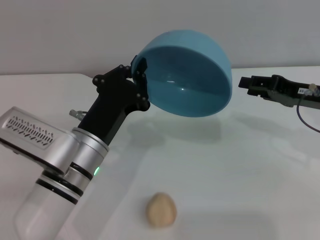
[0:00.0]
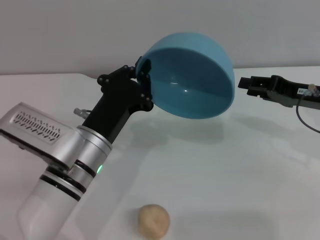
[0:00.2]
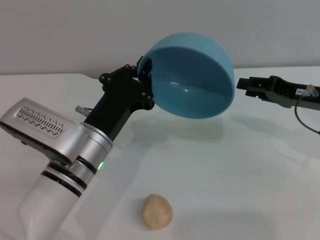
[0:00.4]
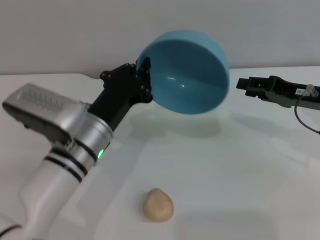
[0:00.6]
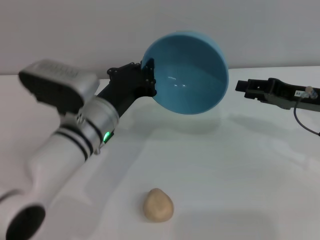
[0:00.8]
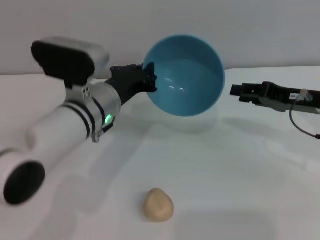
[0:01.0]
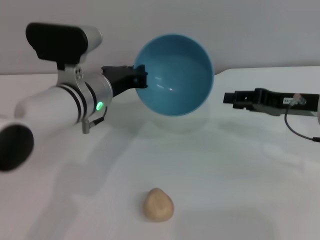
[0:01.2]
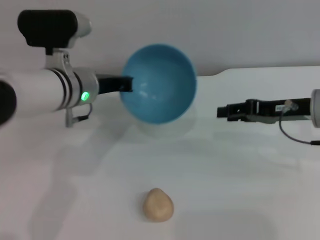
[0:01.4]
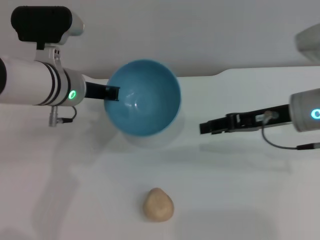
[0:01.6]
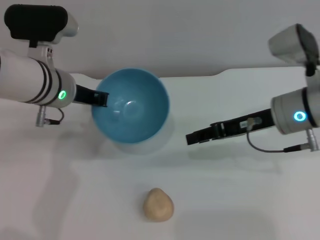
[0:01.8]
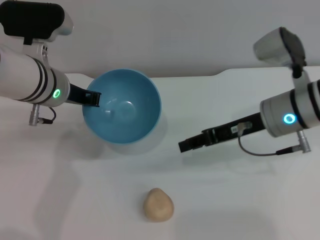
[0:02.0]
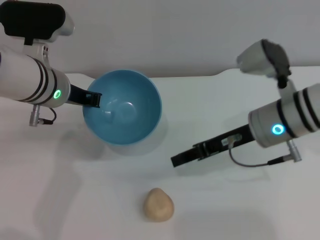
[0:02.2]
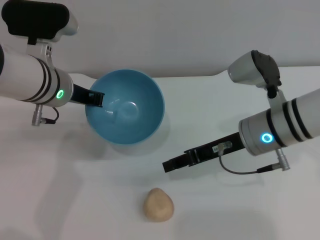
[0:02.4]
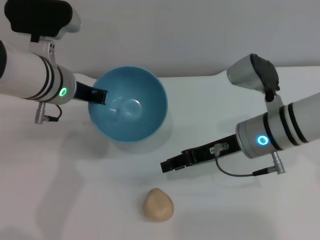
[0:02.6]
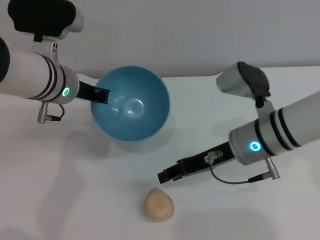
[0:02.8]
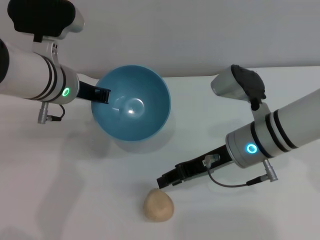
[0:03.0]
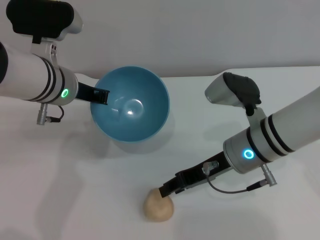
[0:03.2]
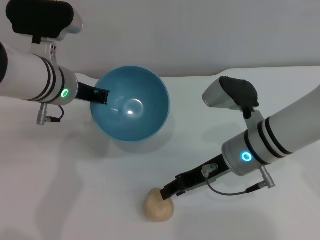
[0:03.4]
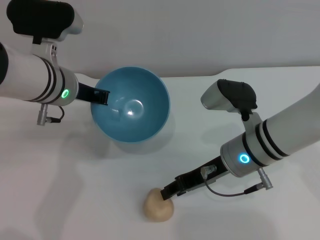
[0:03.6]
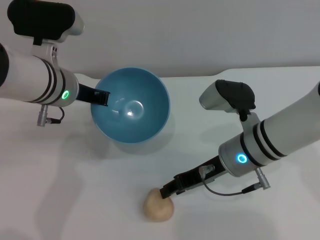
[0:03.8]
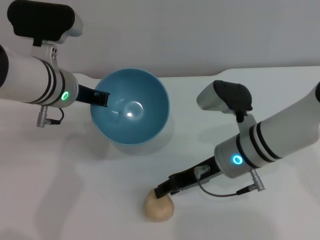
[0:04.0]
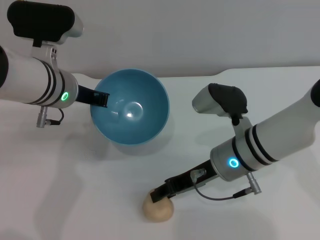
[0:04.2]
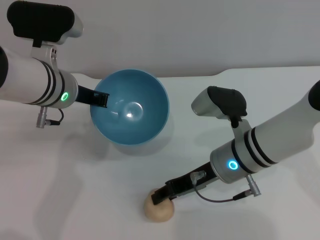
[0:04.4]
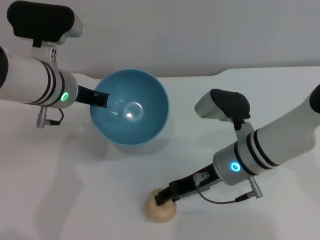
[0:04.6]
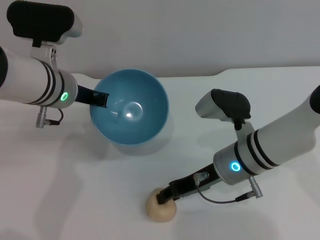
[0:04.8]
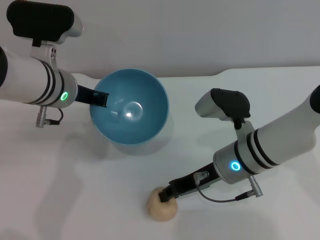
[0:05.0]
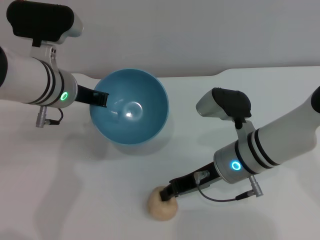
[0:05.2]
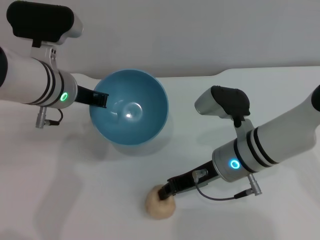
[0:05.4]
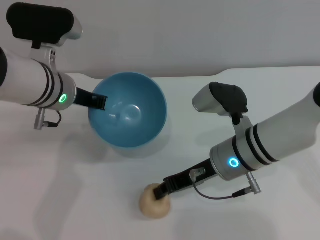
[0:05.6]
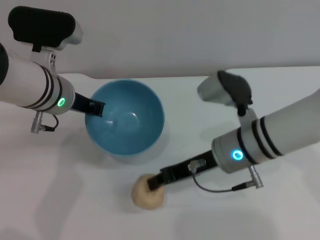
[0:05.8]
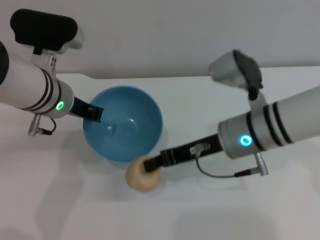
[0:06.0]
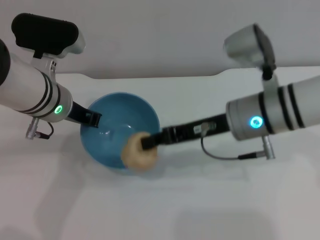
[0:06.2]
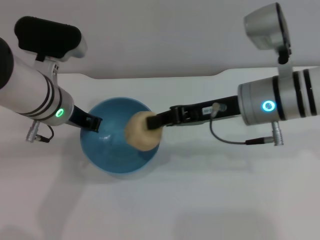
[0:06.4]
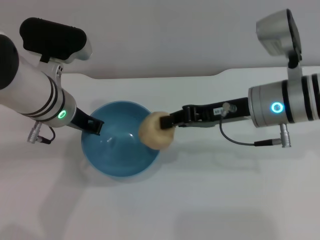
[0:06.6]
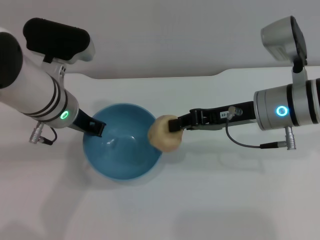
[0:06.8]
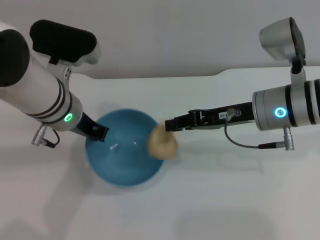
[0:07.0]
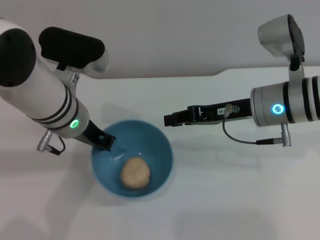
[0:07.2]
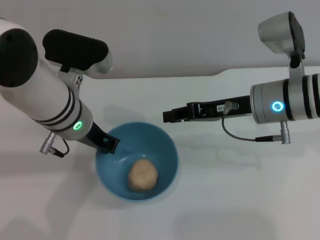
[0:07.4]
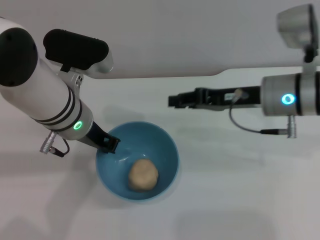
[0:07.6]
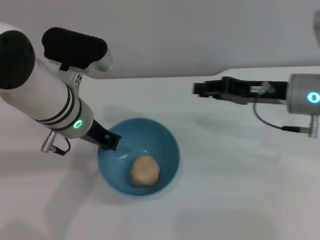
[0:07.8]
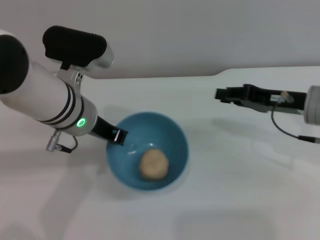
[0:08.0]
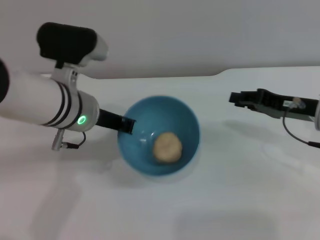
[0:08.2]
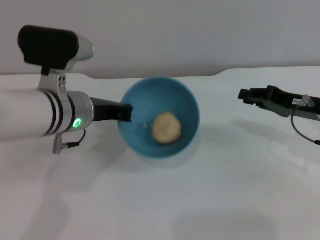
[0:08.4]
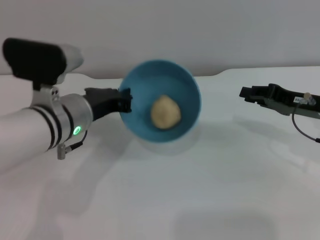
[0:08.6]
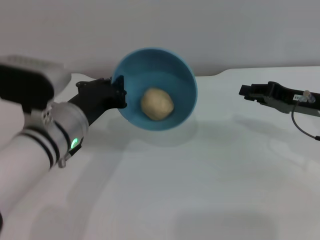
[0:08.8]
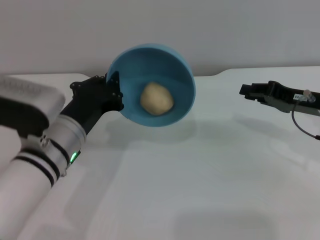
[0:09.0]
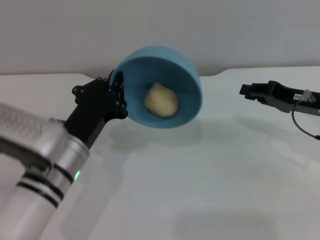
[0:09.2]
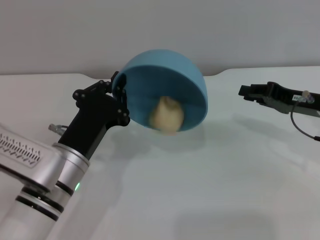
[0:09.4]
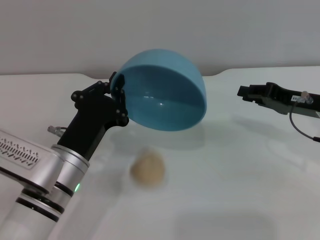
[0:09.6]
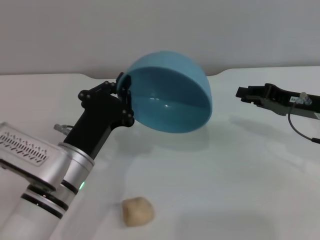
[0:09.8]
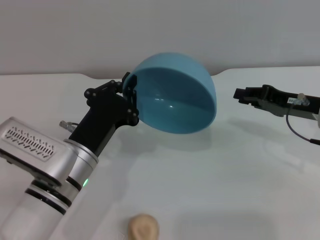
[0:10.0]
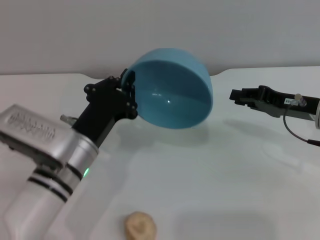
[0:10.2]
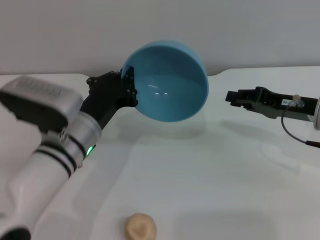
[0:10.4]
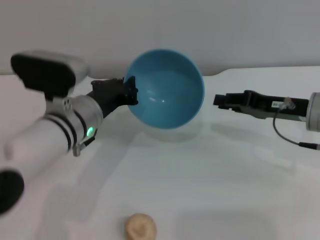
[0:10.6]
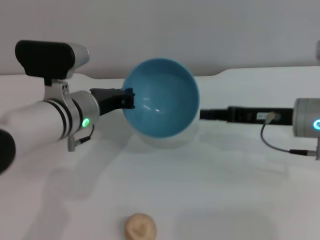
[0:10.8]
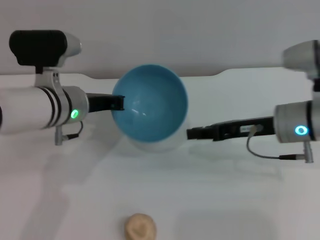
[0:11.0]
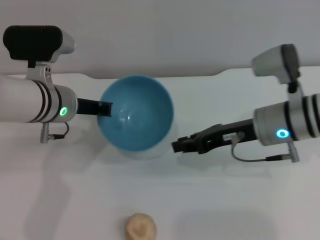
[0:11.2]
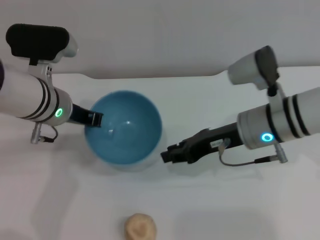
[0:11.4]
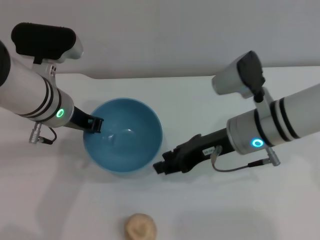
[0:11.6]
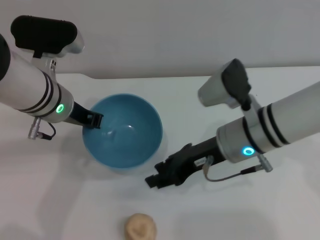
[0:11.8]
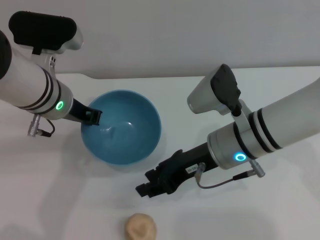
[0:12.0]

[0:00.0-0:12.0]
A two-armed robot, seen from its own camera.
Task of the whole recording: put the egg yolk pastry into the blue bowl and pour it out repeatedly.
Step, 0:00.6 to 0:05.8: Pick up the egg yolk pastry with the right gripper.
Step, 0:06.2 to 0:07.6: Place the egg yolk pastry into the bowl.
Step, 0:07.8 to 0:11.0: Pour the egg yolk pastry out of bowl.
0:00.0 to 0:01.6: The left gripper heads forward and upward, covering about 15 cm. The right gripper moves to the left, about 5 cm.
0:01.6 to 0:03.0: The right gripper is displaced to the left by some 10 cm.
0:03.0 to 0:04.4: There are only small adjustments of the grippers.
0:04.4 to 0:06.0: The right gripper travels upward by roughly 5 cm.
0:06.0 to 0:07.6: The right gripper travels to the right by approximately 5 cm.
0:07.6 to 0:09.0: The right gripper travels to the right by about 10 cm, while the left gripper travels backward and downward by approximately 10 cm.
0:09.0 to 0:10.4: The grippers stay close to where they were, moving slightly.
0:10.4 to 0:12.0: The right gripper heads to the left, covering some 15 cm. Meanwhile the left gripper shifts approximately 10 cm upward and forward.

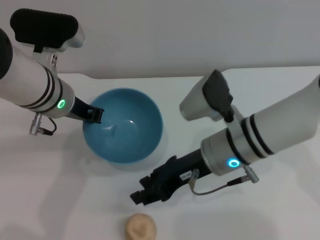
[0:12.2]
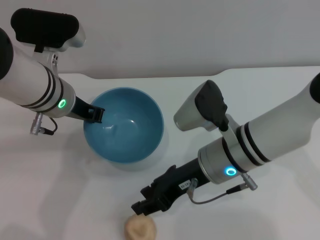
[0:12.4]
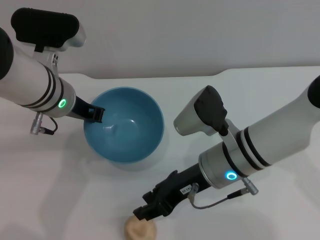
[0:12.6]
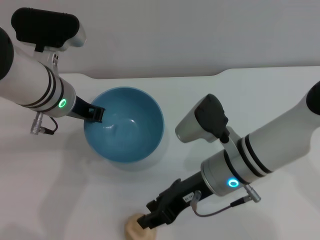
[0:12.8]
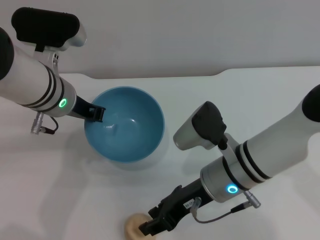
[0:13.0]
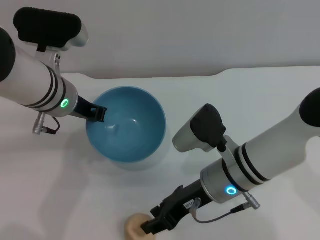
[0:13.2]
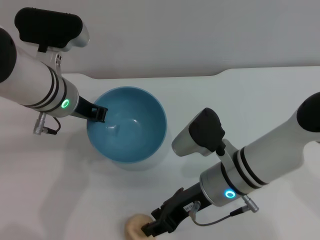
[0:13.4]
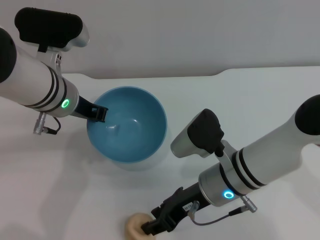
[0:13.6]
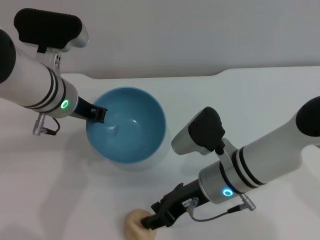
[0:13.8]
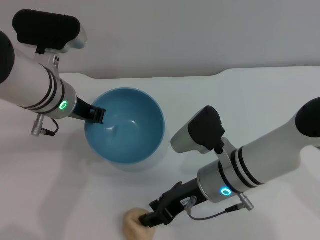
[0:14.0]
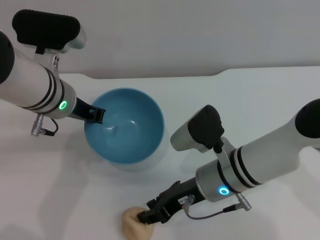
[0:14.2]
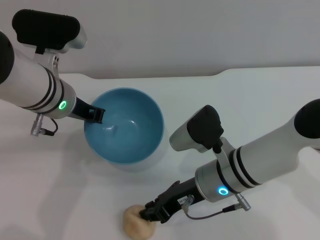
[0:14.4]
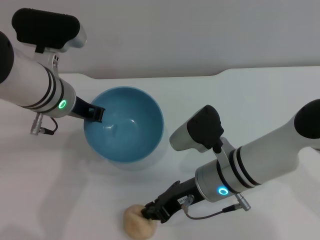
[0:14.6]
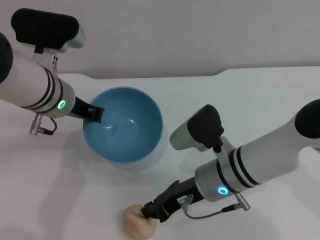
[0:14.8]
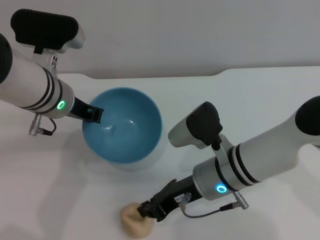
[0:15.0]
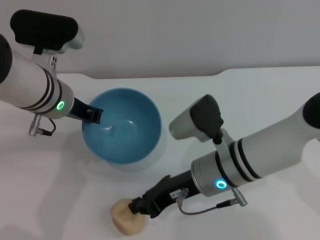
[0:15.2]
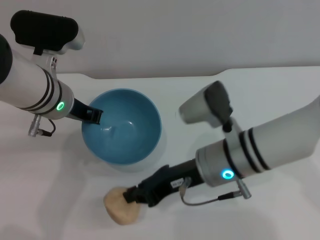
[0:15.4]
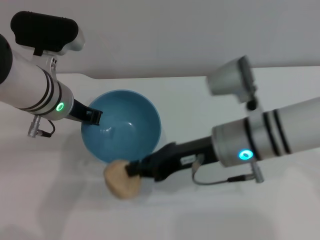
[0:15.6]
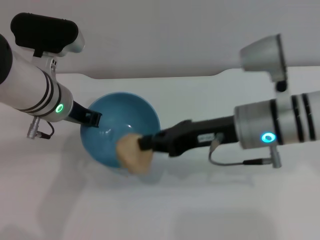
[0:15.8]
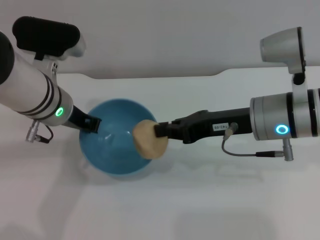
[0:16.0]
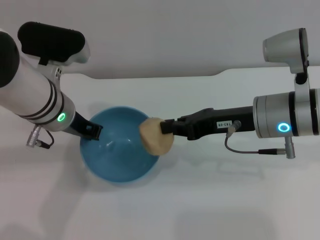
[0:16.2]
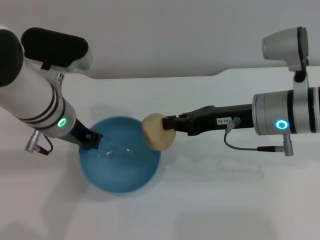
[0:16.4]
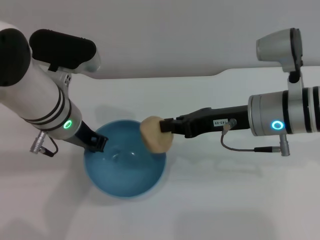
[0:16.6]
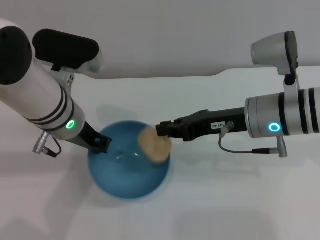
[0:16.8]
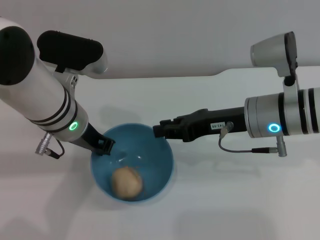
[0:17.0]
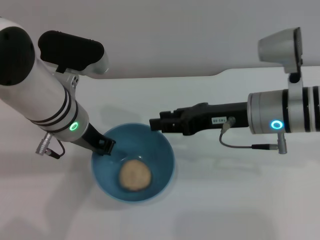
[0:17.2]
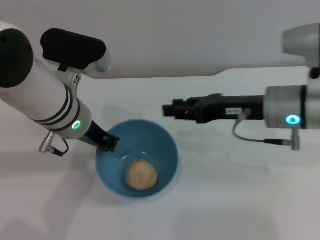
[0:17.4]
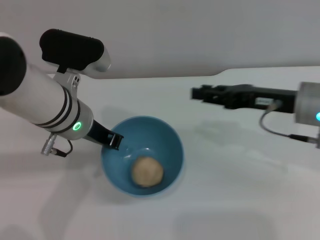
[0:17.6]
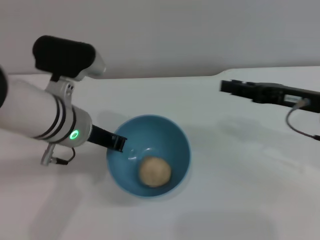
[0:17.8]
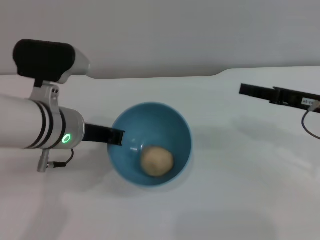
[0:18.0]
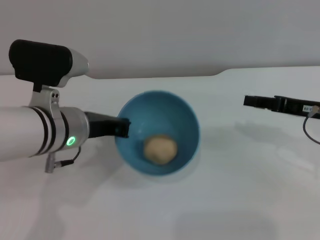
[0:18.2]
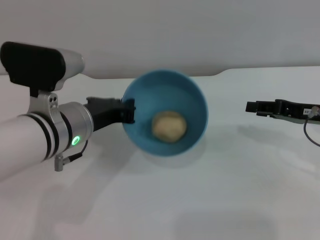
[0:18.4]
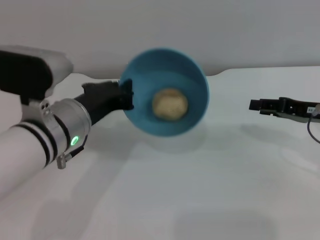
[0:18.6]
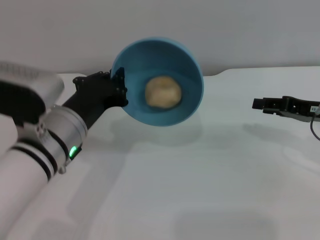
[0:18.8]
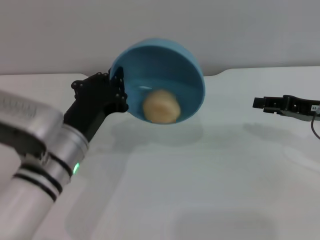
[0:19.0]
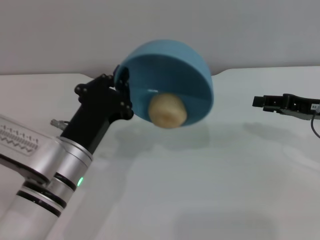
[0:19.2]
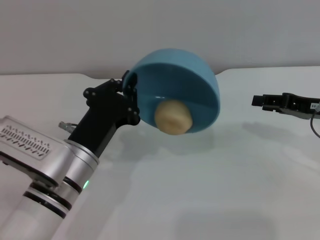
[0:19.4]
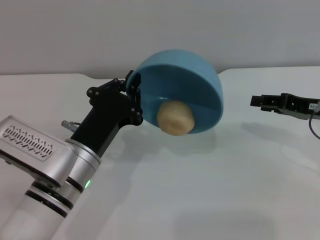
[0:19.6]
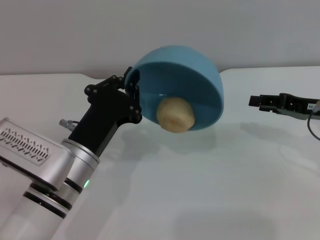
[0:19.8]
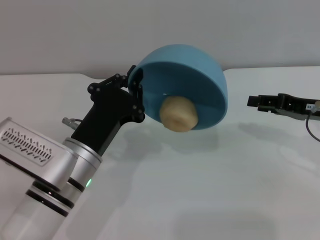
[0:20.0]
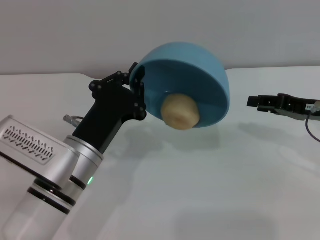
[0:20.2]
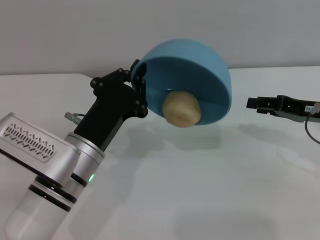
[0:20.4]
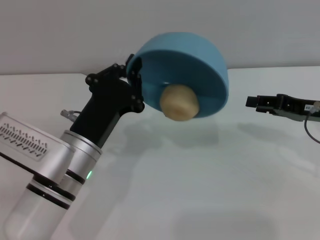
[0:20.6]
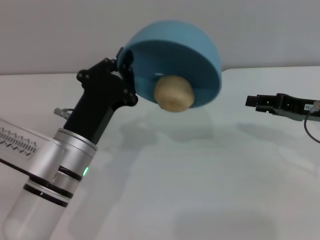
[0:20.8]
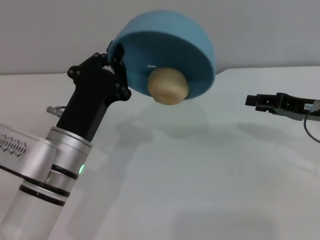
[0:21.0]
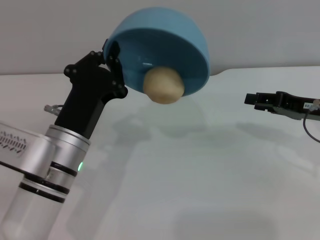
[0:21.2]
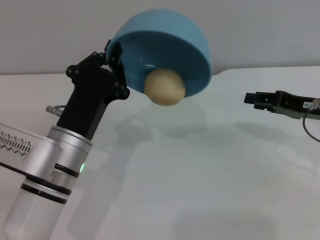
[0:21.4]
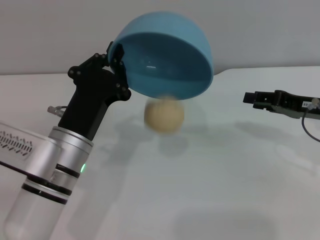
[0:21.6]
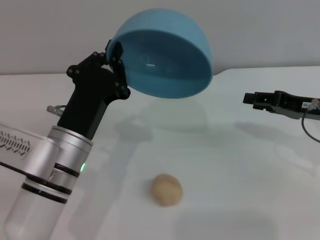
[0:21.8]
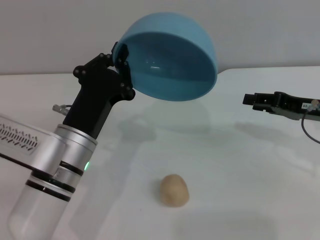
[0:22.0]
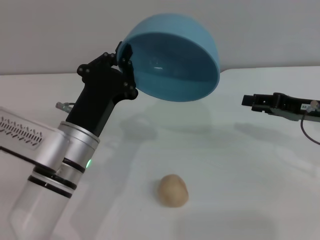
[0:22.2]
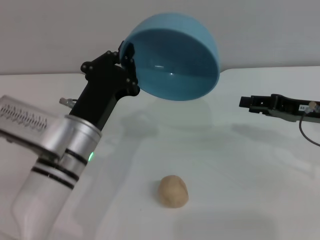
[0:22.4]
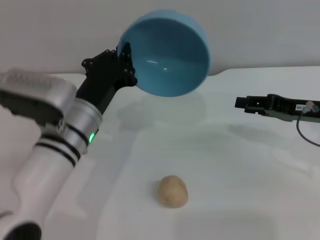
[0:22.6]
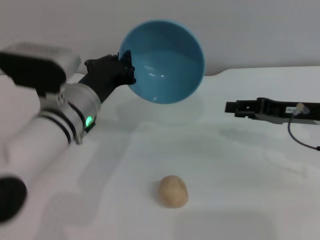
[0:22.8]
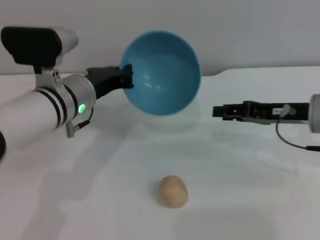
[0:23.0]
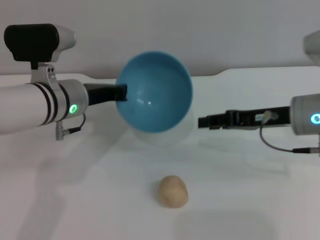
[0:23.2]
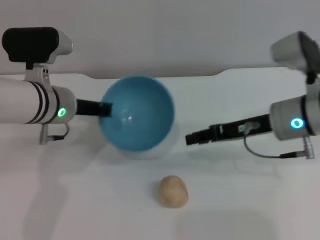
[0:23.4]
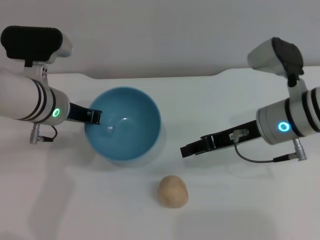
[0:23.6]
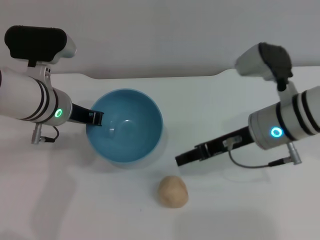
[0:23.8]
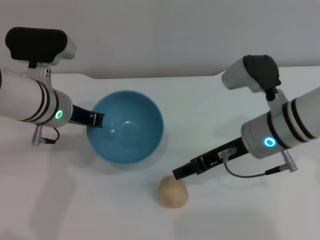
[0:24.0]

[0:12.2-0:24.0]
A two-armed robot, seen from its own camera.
Task of the whole recording: put the egg yolk pastry into the blue bowl and pour it out repeatedly.
Step, 0:12.2 to 0:15.6: Pick up the egg yolk pastry with the right gripper.
Step, 0:16.0 to 0:18.6: Place the egg yolk pastry into the bowl.
Step, 0:18.8 to 0:22.2: Pour the egg yolk pastry out of bowl.
0:12.2 to 0:13.6: The right gripper moves roughly 5 cm.
0:13.6 to 0:15.2: The right gripper closes up.
0:15.2 to 0:16.6: The right gripper travels to the right and upward by about 10 cm.
0:16.6 to 0:18.2: The right gripper travels to the right by about 15 cm, and opens.
0:18.2 to 0:19.6: The left gripper shifts approximately 10 cm downward and backward.
0:22.6 to 0:24.0: The right gripper shifts approximately 15 cm to the left, while the left gripper is displaced forward by about 5 cm.
